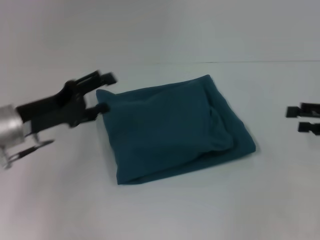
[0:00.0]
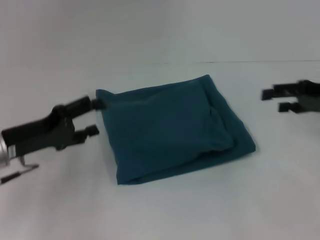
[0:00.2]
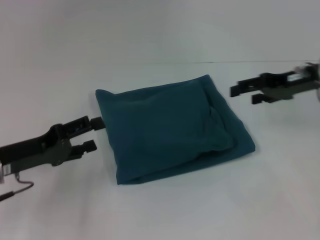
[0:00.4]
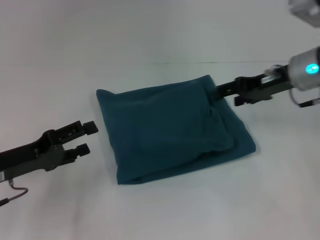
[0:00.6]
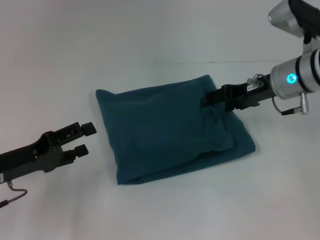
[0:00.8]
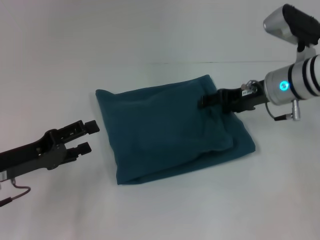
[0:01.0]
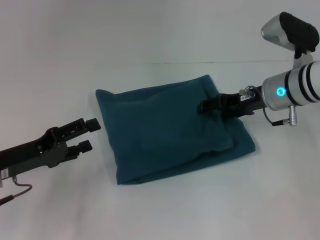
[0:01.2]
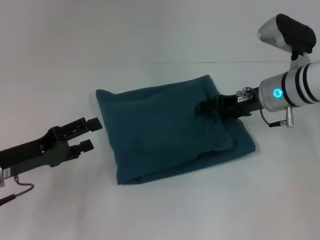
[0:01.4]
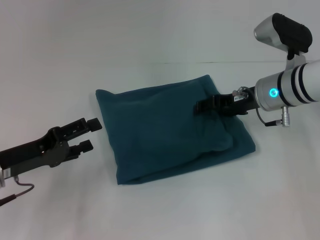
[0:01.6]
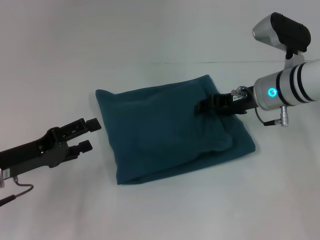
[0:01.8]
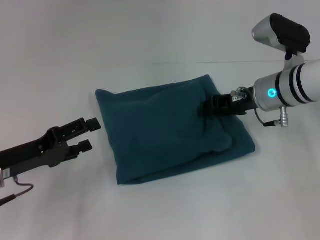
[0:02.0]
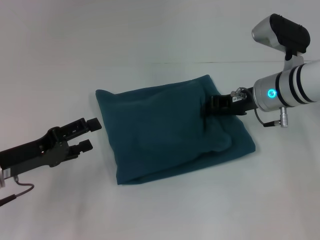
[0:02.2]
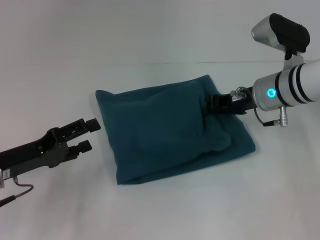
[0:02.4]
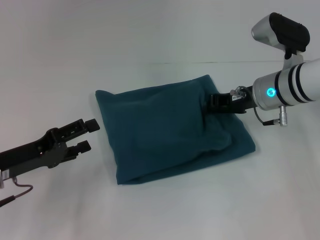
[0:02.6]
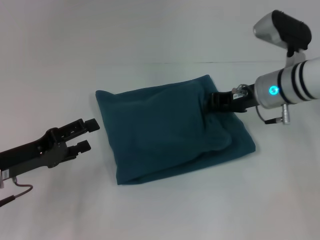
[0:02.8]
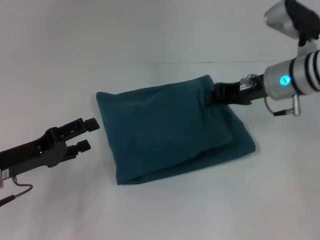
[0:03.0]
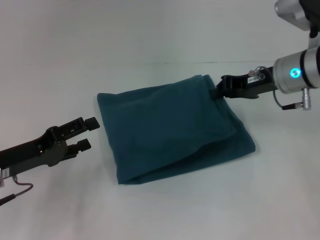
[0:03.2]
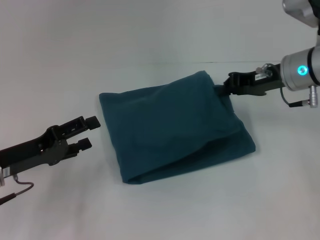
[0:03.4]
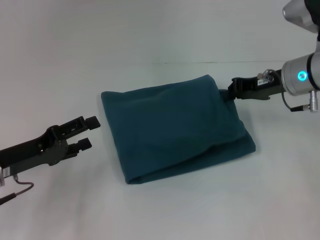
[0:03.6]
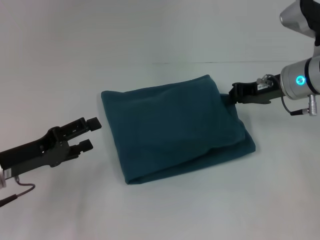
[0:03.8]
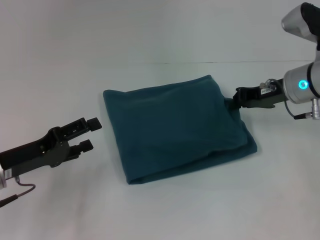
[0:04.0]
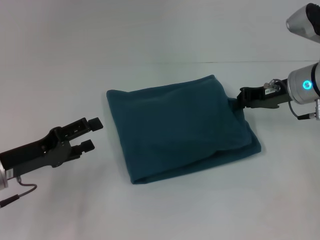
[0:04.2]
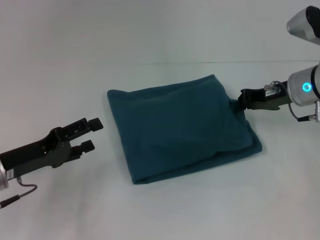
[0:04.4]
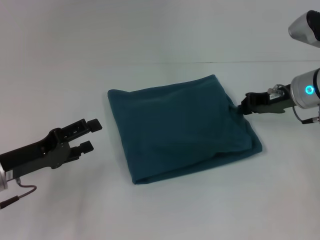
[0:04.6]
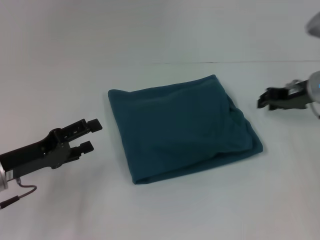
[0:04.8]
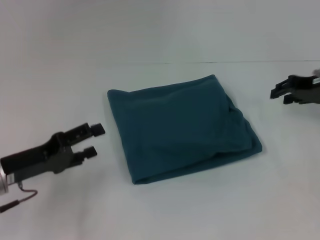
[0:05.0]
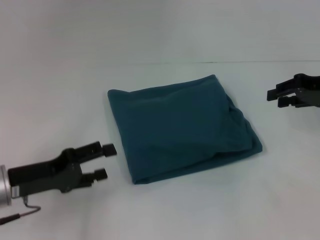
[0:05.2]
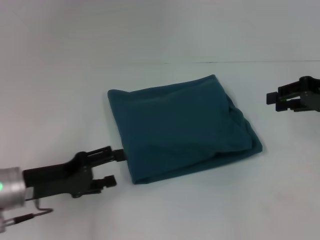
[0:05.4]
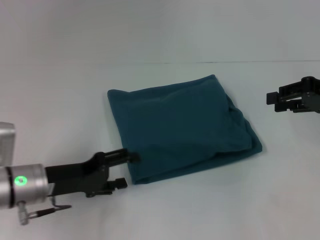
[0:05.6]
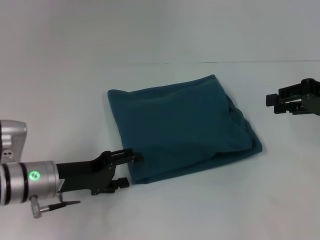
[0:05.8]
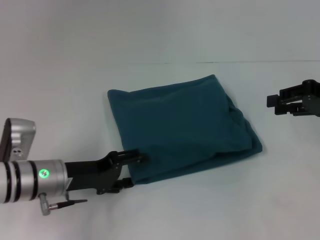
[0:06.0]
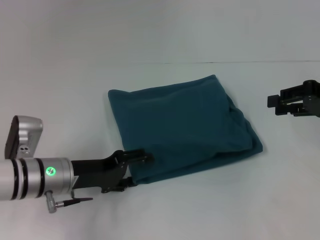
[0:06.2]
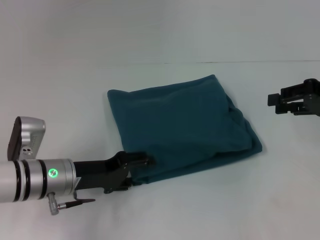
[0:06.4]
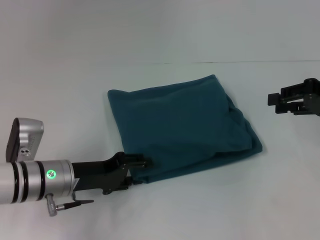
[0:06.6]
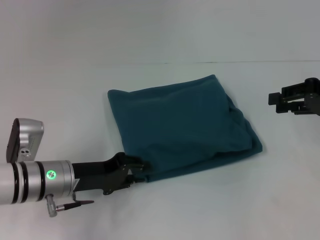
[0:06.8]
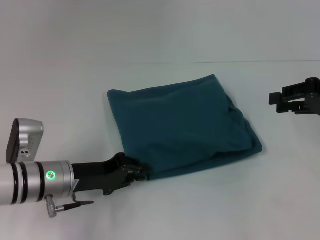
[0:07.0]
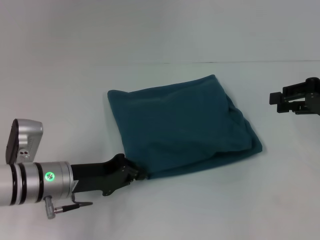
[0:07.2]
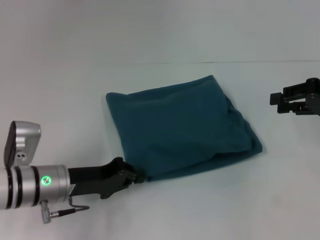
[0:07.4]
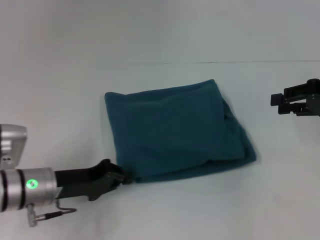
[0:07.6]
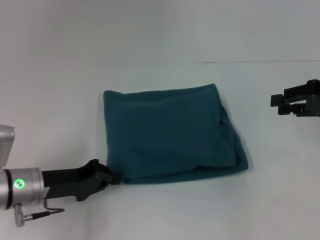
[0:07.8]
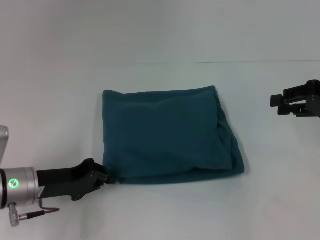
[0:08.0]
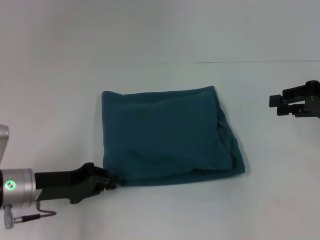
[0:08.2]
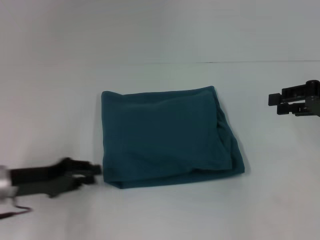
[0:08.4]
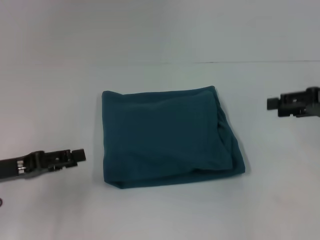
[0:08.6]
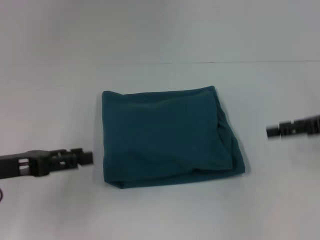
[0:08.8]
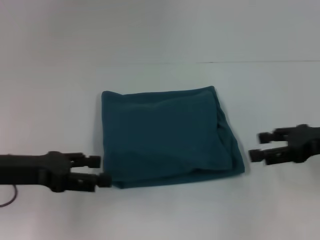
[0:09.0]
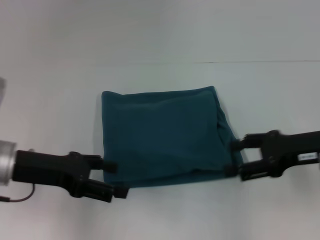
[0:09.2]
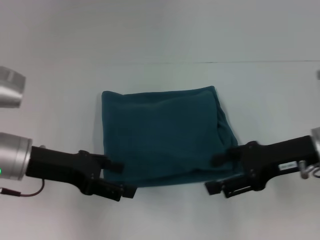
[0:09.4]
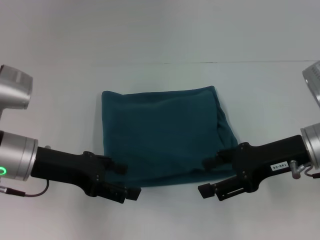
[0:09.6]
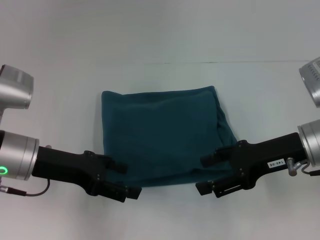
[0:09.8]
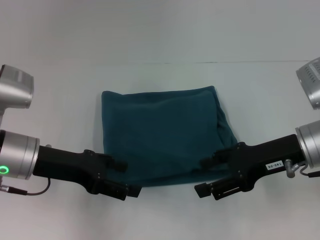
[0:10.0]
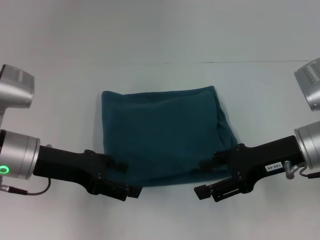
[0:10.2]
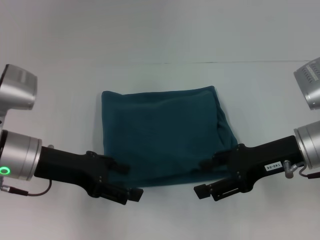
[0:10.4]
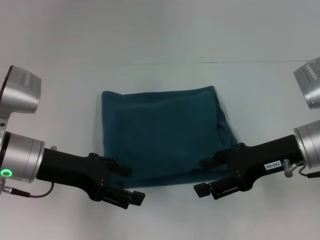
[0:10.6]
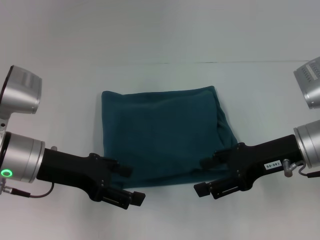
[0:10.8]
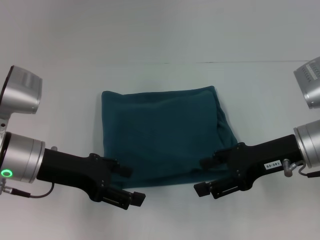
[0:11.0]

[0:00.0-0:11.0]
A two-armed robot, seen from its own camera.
0:00.0 to 0:01.6: The right gripper shifts roughly 20 cm to the left and forward. The left gripper shifts approximately 5 cm backward.
0:01.6 to 0:03.2: The right gripper closes its fingers.
0:03.2 to 0:04.8: The right gripper travels to the right by some 5 cm.
0:04.8 to 0:06.2: The right gripper moves to the right and backward, some 10 cm. The left gripper is displaced to the right by about 10 cm.
0:06.2 to 0:07.8: The left gripper closes its fingers.
0:07.8 to 0:09.4: The right gripper shifts some 10 cm to the left and backward, and opens. The left gripper travels upward by approximately 10 cm, and opens.
0:09.4 to 0:11.0: There are only small adjustments of the grippers.

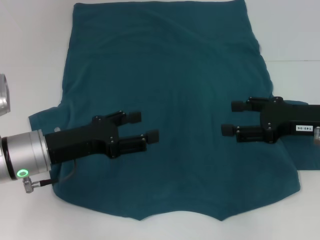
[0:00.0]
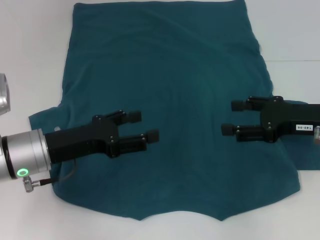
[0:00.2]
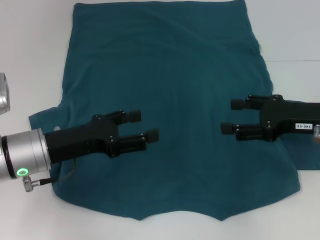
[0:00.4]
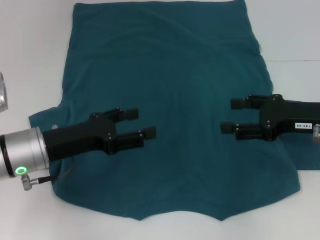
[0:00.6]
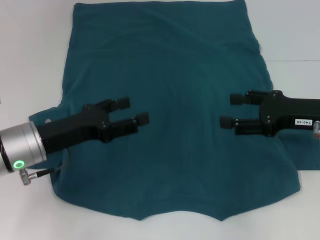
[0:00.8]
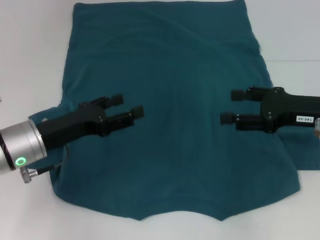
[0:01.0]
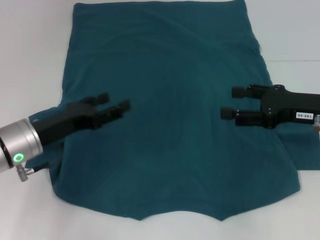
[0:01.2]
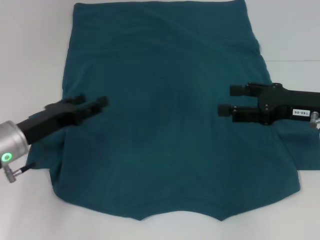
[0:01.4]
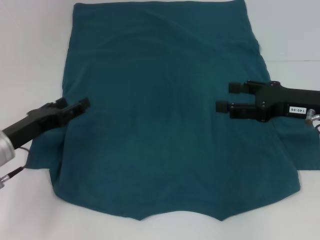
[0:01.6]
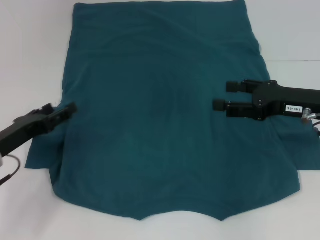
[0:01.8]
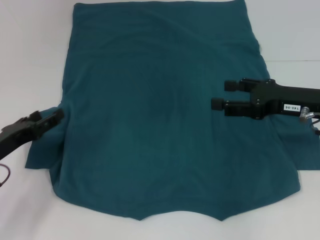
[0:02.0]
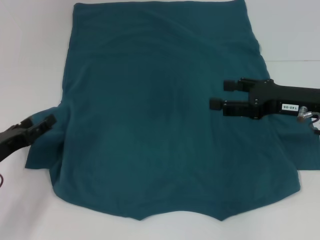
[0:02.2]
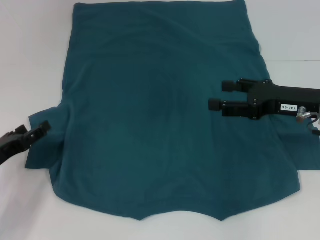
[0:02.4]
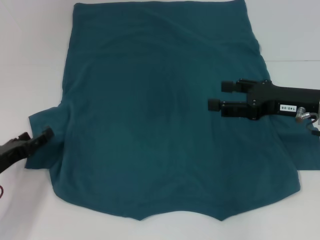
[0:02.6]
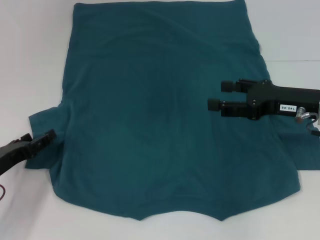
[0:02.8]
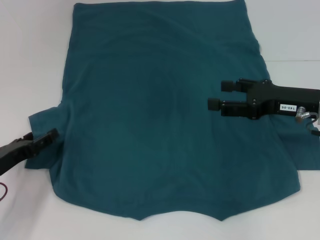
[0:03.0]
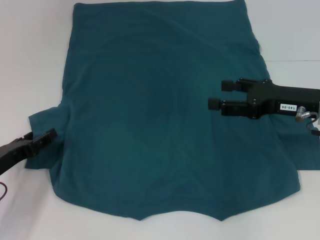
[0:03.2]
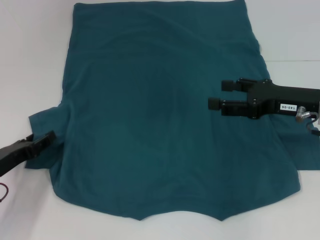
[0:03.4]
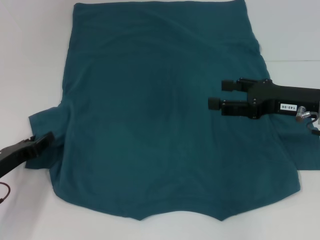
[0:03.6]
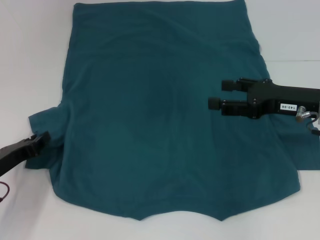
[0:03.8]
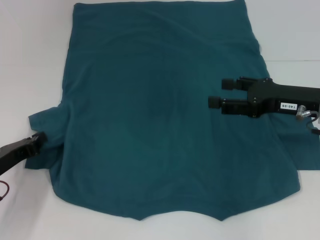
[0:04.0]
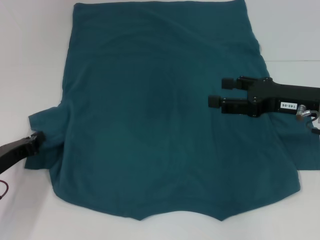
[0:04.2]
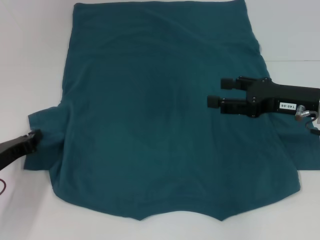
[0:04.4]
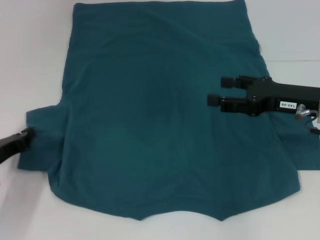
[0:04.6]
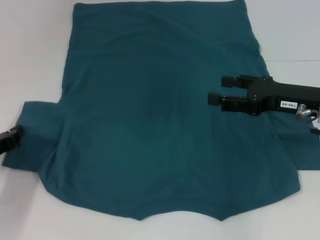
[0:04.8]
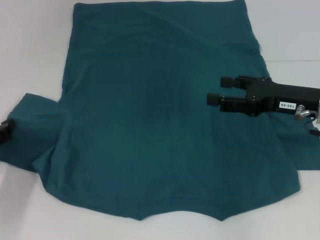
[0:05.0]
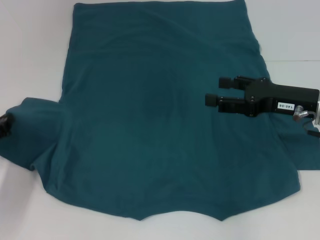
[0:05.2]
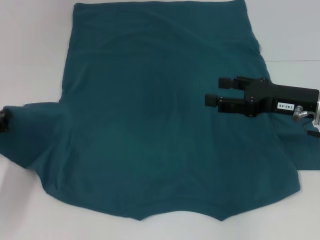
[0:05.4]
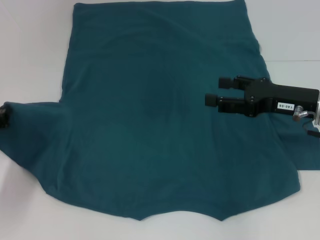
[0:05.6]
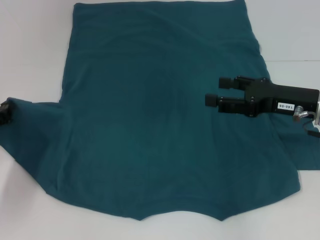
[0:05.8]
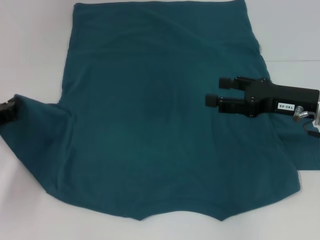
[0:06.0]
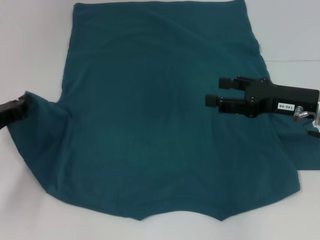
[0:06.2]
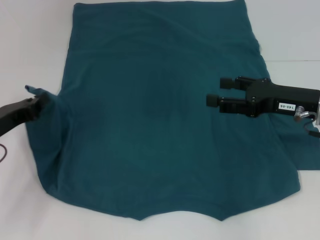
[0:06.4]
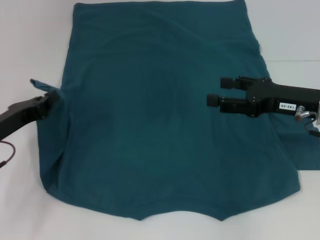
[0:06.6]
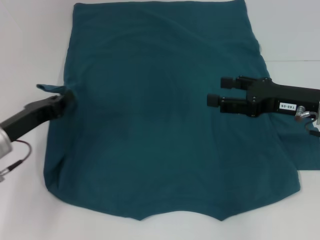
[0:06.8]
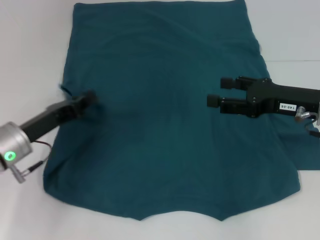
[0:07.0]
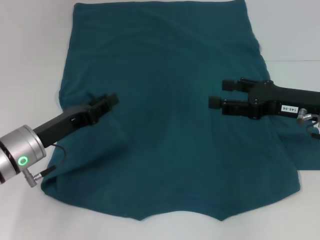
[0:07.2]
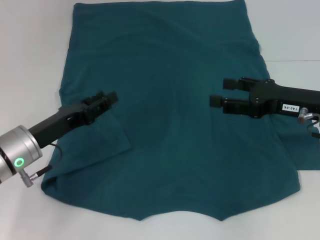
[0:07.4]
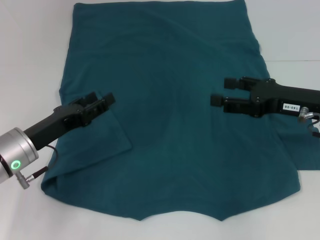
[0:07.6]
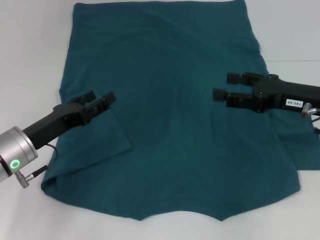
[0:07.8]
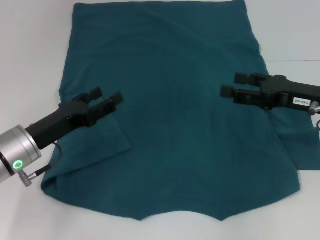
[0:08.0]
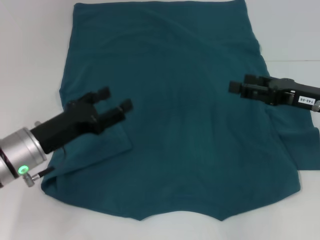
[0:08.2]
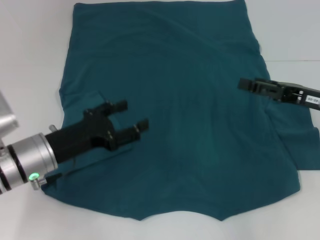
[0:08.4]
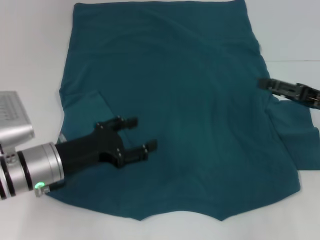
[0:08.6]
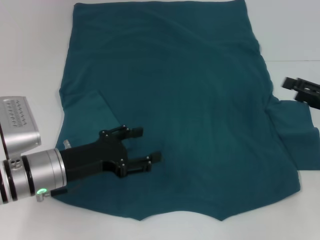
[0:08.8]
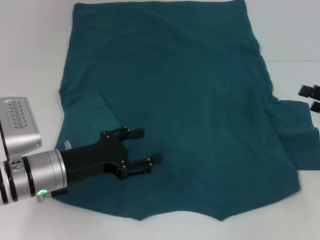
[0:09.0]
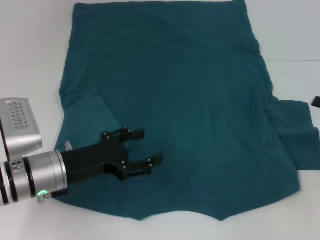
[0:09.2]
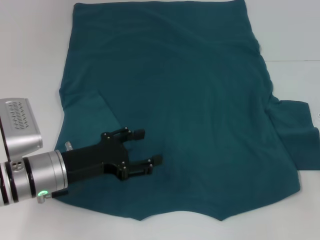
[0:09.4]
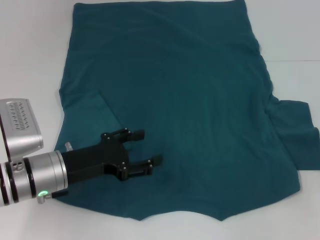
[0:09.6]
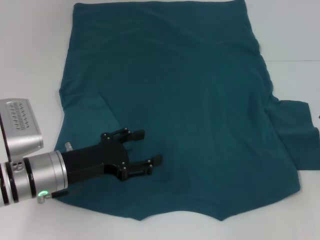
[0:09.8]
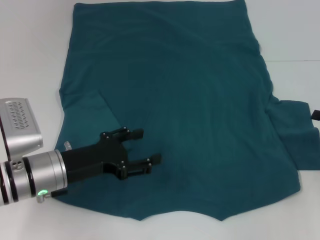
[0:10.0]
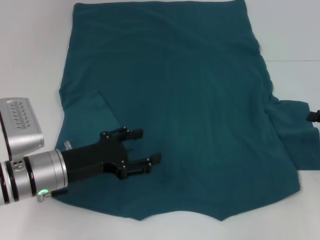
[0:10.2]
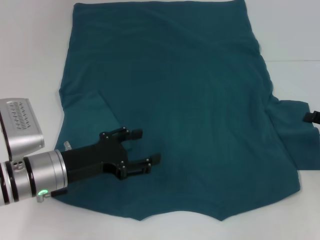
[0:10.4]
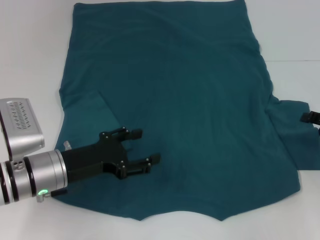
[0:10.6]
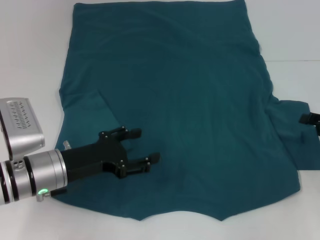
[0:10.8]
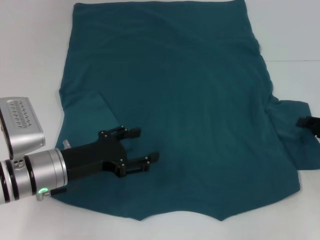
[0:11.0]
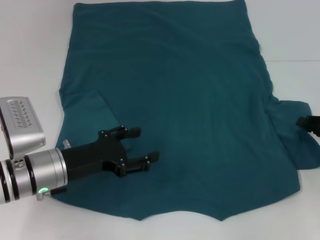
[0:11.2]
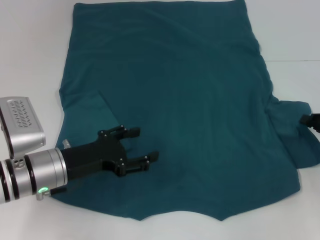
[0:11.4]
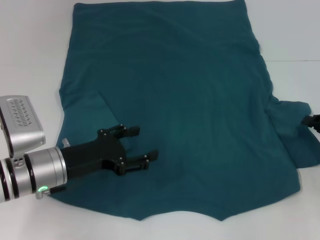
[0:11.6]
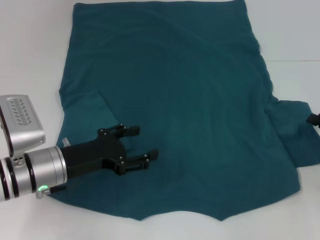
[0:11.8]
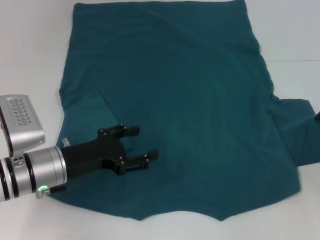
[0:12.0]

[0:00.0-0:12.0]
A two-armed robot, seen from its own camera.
Step, 0:00.0 to 0:08.4: Fold the bottom left sleeve with your left hand.
0:00.0 to 0:01.6: The left gripper is displaced to the left by roughly 5 cm.
0:01.6 to 0:03.0: The left gripper shifts by some 5 cm.
0:03.0 to 0:04.4: The left gripper closes up.
0:04.4 to 0:06.0: The left gripper changes place by roughly 5 cm.
0:06.0 to 0:07.6: The left gripper is displaced to the right by roughly 10 cm, and opens.
0:07.6 to 0:09.0: The right gripper shifts about 10 cm to the right.
0:09.0 to 0:10.4: The grippers move only a little.
0:10.4 to 0:12.0: The right gripper closes up.
